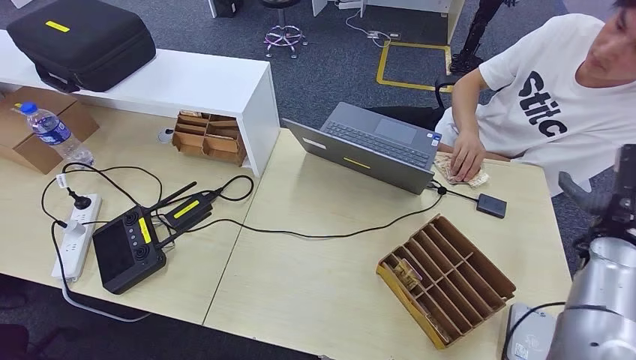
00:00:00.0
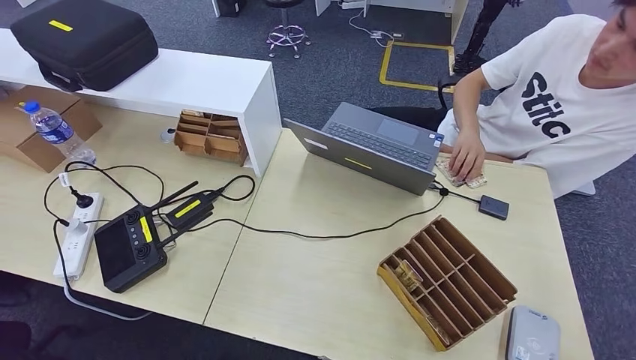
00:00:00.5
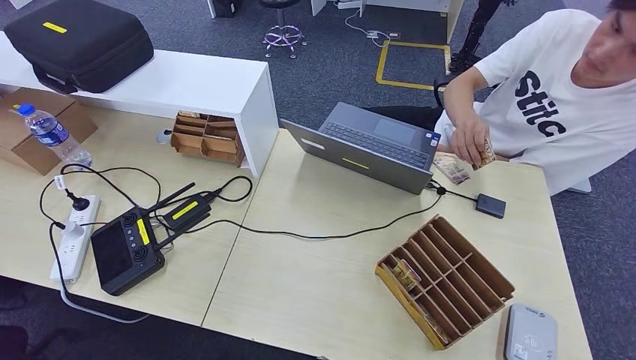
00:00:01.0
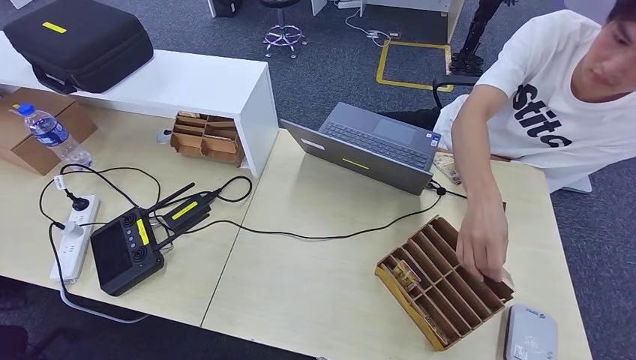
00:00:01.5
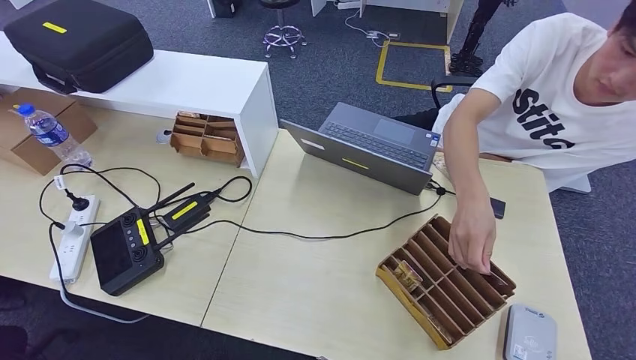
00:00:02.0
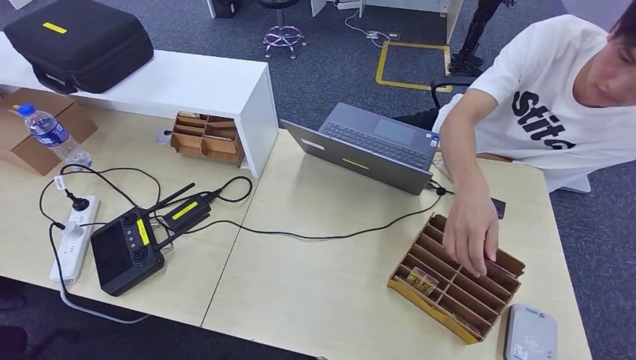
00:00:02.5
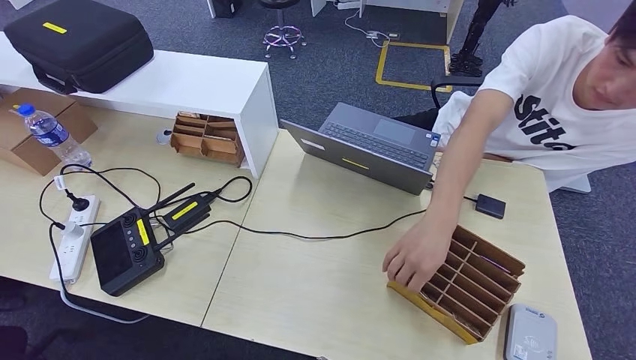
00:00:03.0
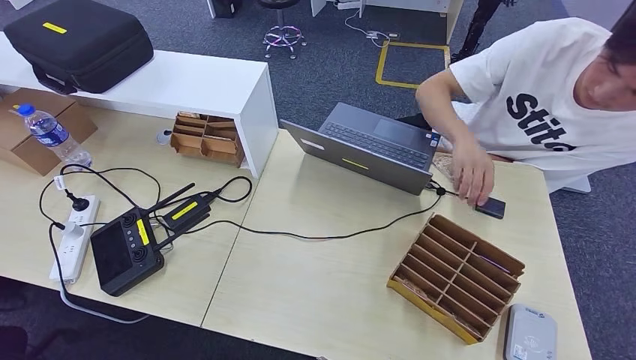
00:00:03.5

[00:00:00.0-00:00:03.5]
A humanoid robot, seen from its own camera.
Step, 00:00:00.0 to 00:00:03.5: Hand the room key to the person.
00:00:00.0 to 00:00:02.0: The right hand is displaced backward and downward by roughly 50 cm.
00:00:02.0 to 00:00:03.5: The right hand heads to the left, covering some 10 cm.
